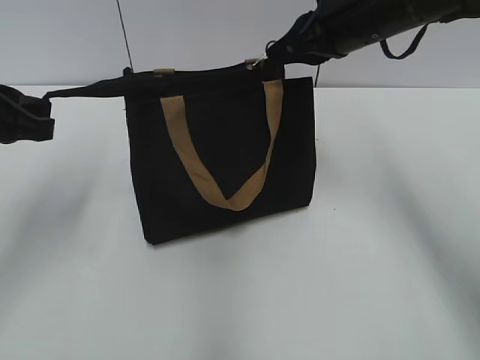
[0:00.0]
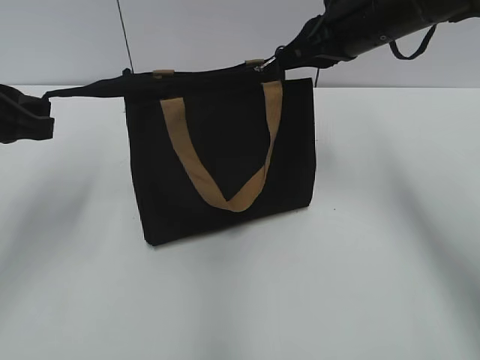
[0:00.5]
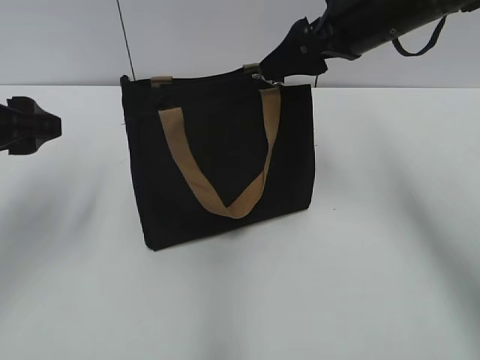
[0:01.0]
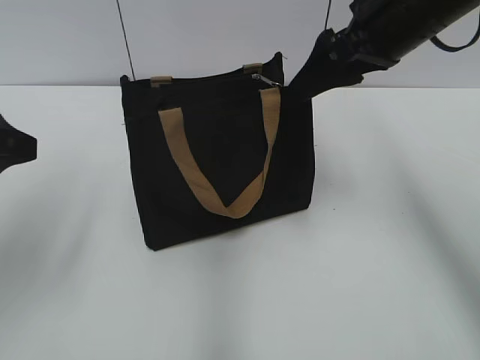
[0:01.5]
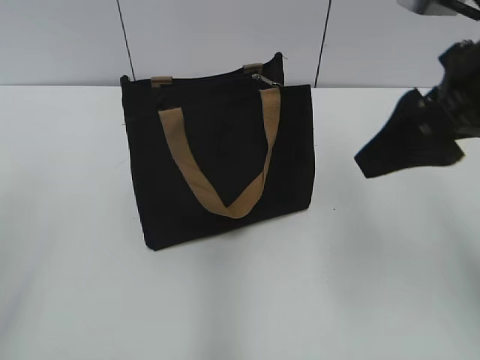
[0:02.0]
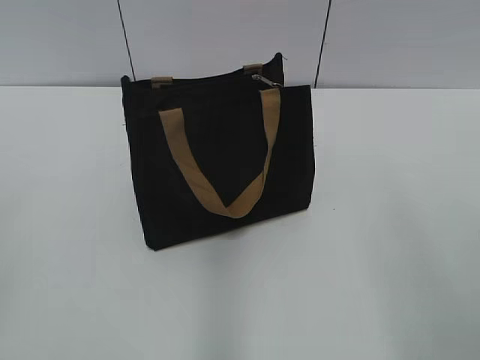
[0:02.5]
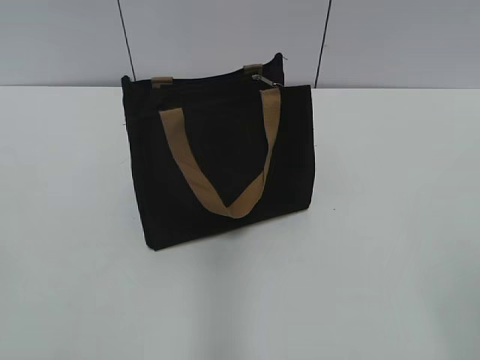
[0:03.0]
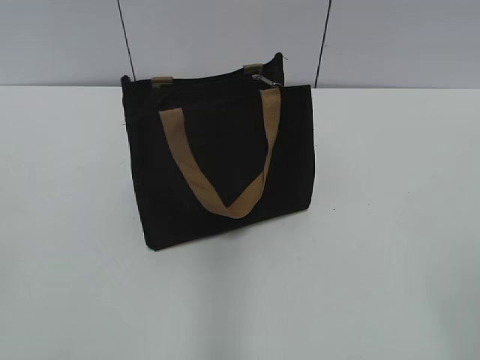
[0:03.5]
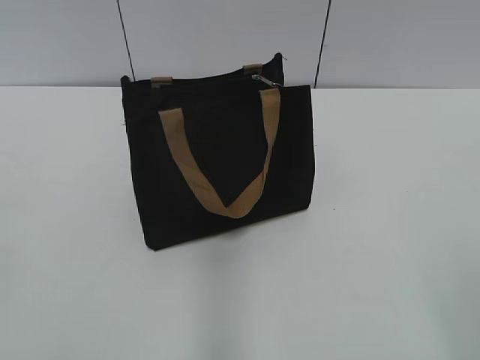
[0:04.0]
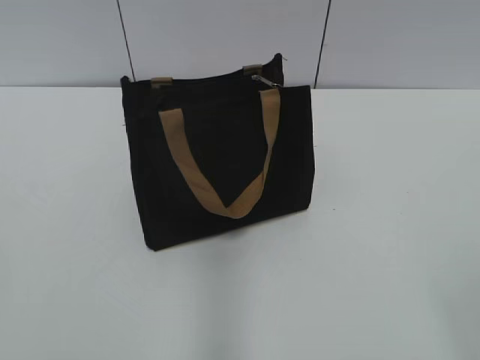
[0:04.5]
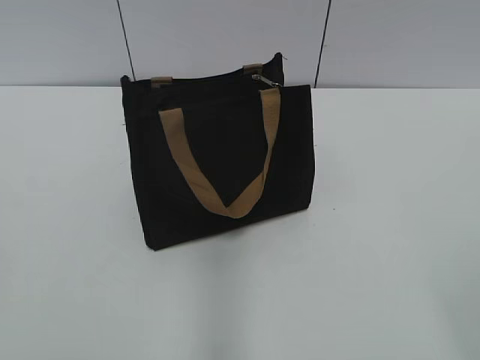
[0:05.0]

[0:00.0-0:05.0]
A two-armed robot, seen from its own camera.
0:00.0 to 0:02.5: Both grippers move backward, some 25 cm. The left gripper opens its fingers. Meanwhile the right gripper opens.
